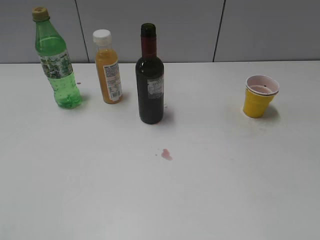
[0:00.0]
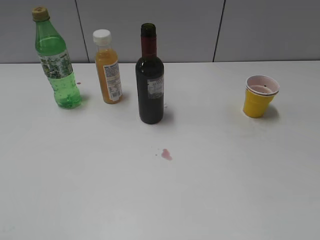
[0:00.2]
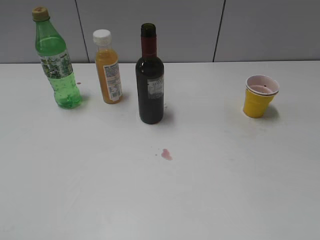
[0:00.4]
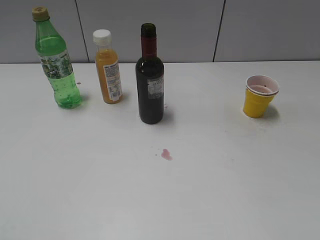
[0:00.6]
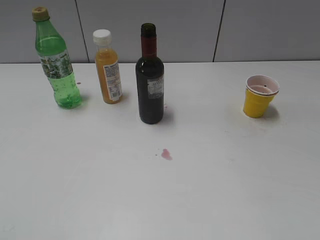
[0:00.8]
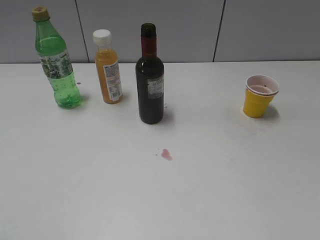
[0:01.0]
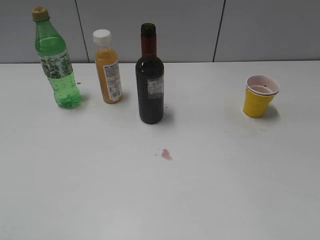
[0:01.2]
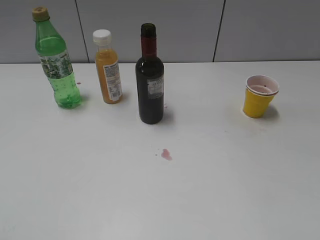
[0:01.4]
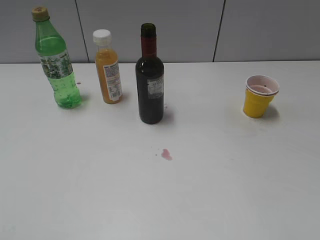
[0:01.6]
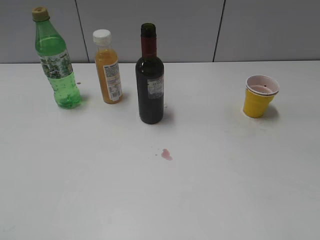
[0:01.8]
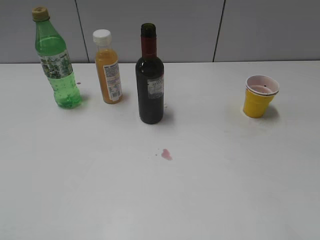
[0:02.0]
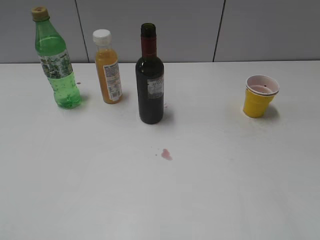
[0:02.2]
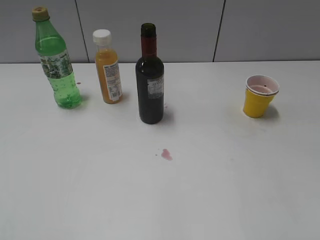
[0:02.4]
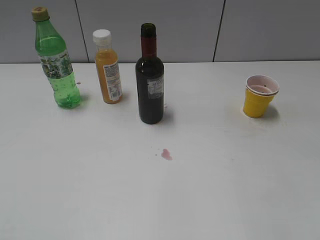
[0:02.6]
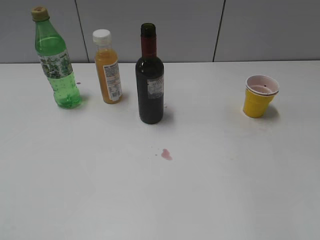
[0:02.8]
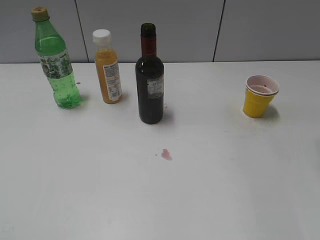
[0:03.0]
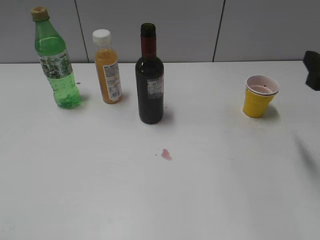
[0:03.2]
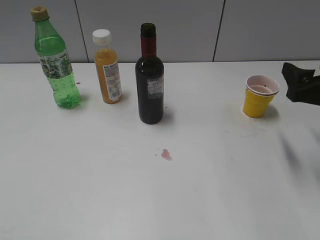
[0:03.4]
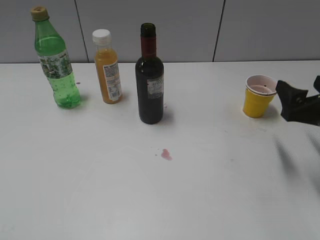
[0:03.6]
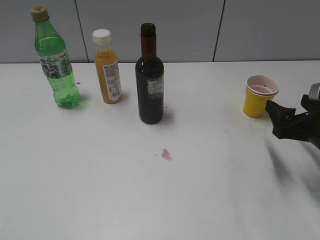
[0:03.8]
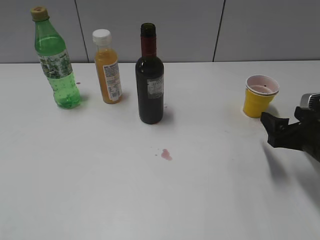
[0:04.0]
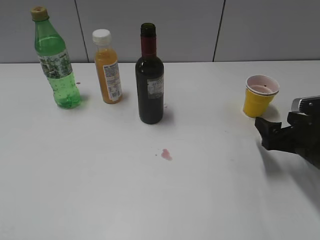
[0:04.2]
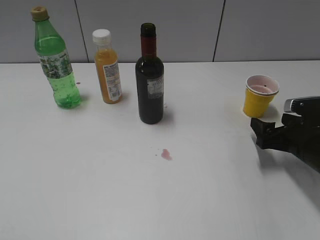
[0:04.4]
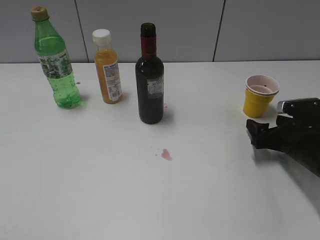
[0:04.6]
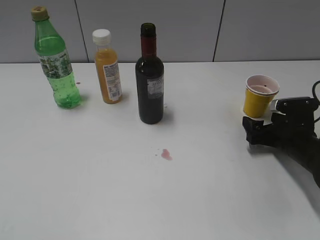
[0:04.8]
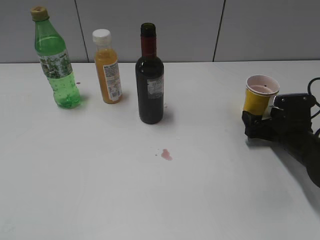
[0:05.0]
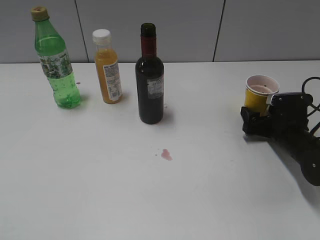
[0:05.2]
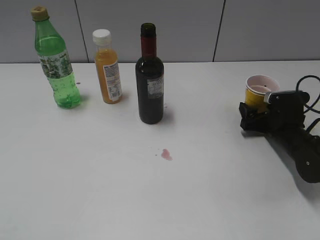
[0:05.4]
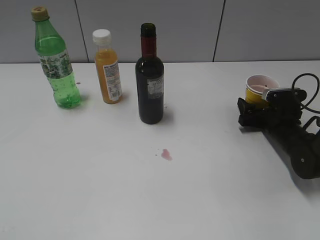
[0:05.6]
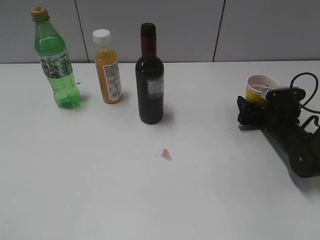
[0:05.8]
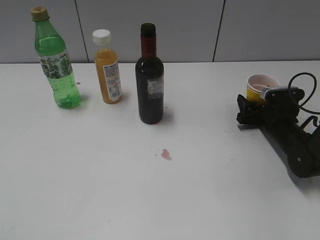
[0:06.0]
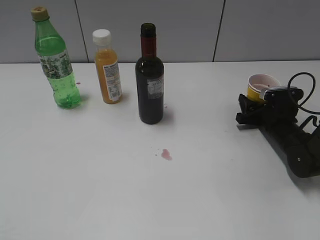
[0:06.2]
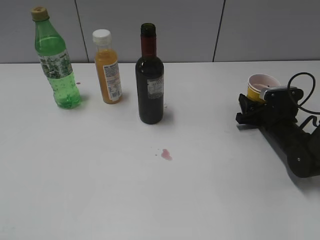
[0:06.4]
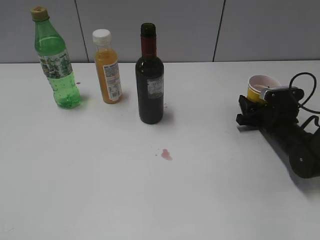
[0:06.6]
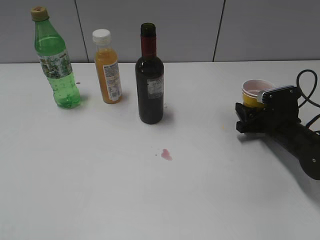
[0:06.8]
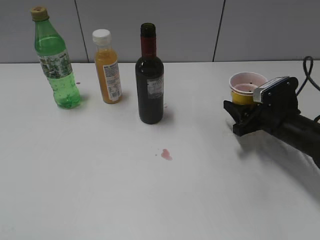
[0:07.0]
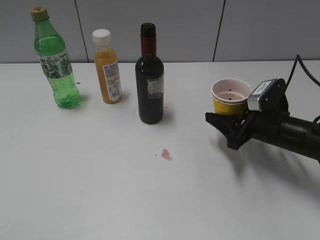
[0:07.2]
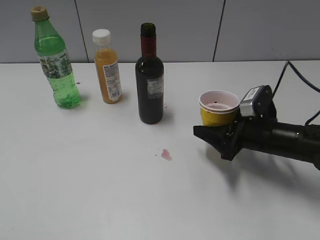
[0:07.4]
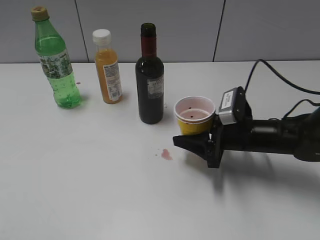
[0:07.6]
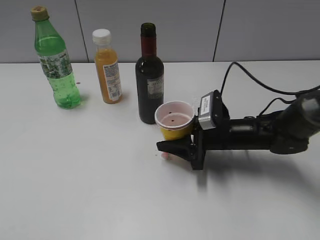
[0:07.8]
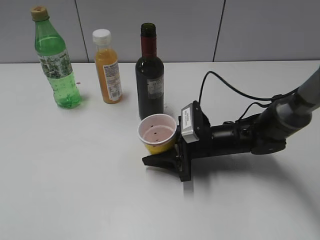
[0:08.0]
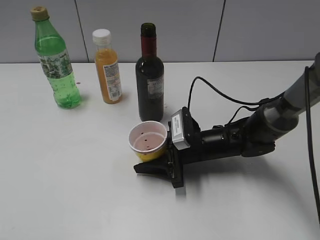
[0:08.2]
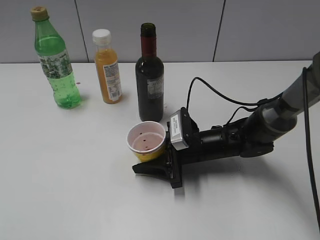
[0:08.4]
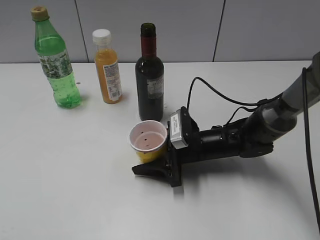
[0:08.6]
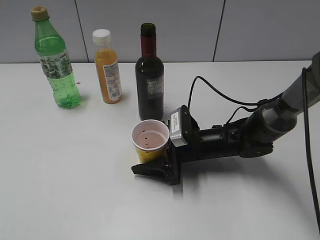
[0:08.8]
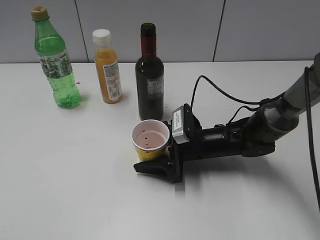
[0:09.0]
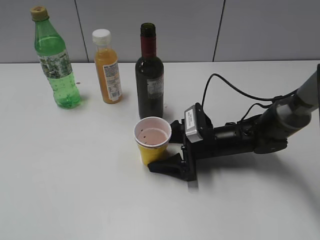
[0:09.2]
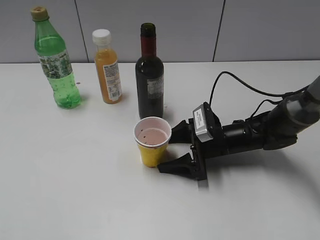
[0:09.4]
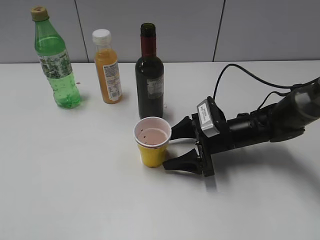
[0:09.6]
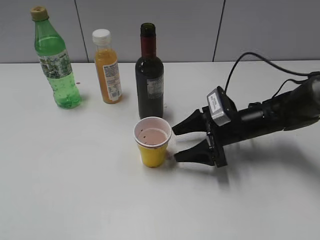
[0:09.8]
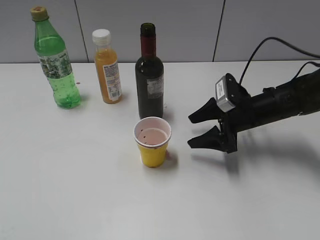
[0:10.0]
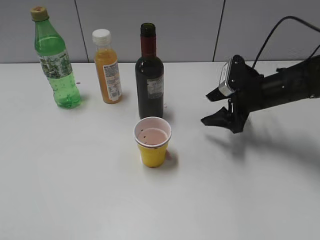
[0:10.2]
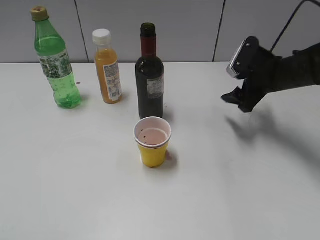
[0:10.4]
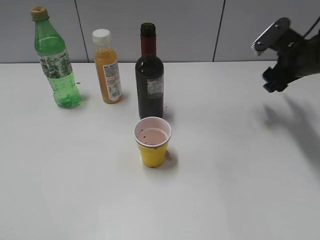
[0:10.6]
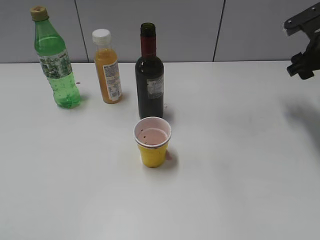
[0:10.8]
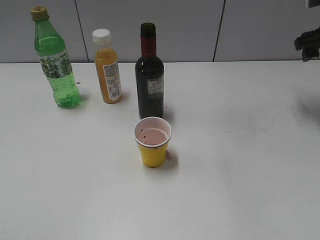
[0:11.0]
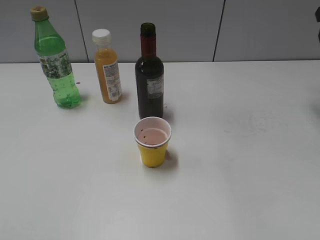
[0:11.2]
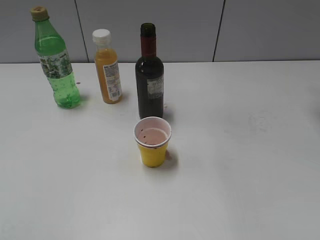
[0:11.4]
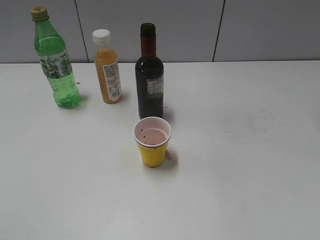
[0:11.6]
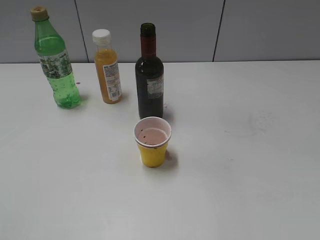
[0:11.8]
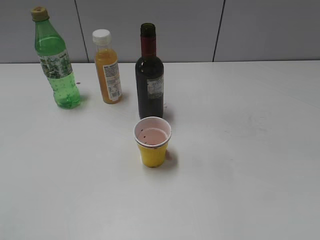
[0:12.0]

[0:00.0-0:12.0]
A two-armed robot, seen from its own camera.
Step, 0:01.2 to 0:06.2: Grasp the yellow paper cup with right gripper.
Step, 0:06.4 to 0:09.4: Place the yellow paper cup on the table with right gripper.
0:03.0 to 0:04.4: The right gripper travels downward by roughly 15 cm, and opens.
0:04.4 to 0:06.0: The right gripper is displaced forward and downward by roughly 10 cm.
0:06.0 to 0:07.6: The right gripper goes approximately 15 cm to the left, backward and upward, and closes its fingers.
0:07.6 to 0:09.0: The right gripper travels to the left by some 10 cm, and opens its fingers.
0:09.0 to 0:10.4: The right gripper shifts about 20 cm to the right, upward and forward.
0:10.4 to 0:12.0: The right gripper heads upward and to the right, covering some 25 cm.

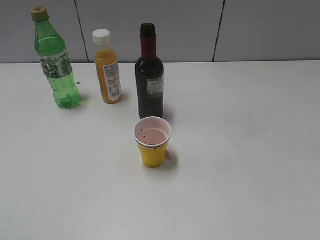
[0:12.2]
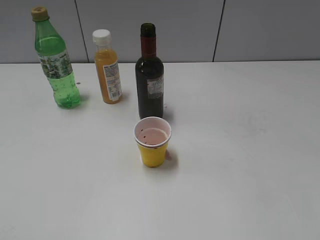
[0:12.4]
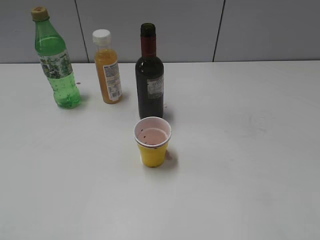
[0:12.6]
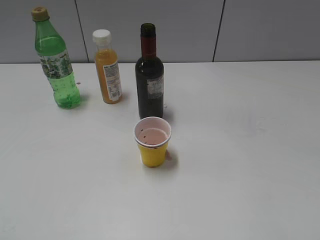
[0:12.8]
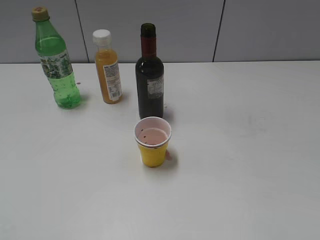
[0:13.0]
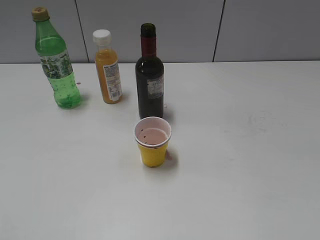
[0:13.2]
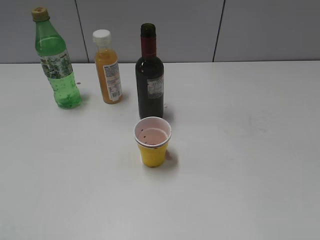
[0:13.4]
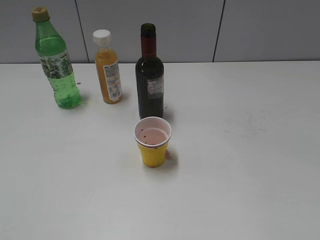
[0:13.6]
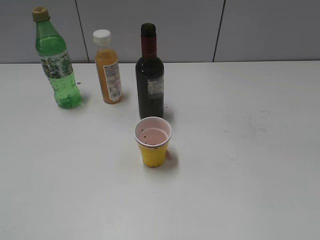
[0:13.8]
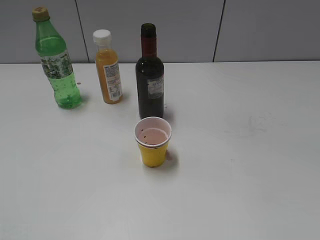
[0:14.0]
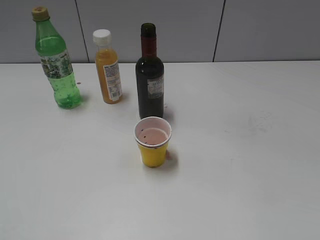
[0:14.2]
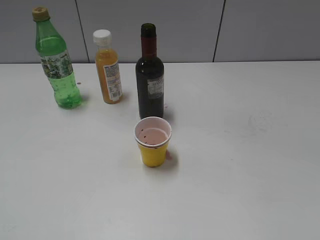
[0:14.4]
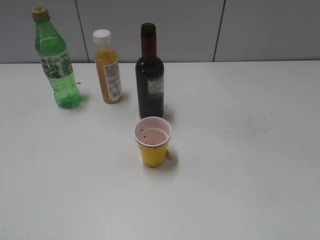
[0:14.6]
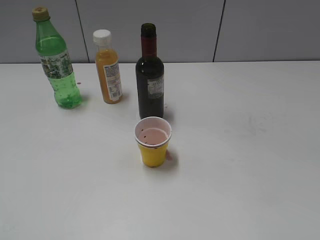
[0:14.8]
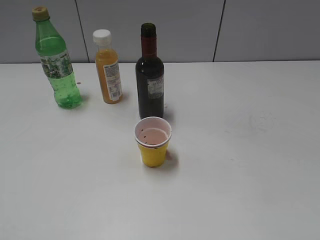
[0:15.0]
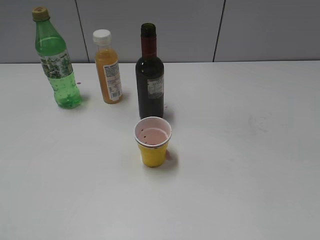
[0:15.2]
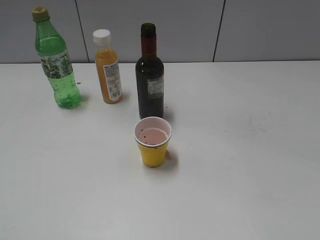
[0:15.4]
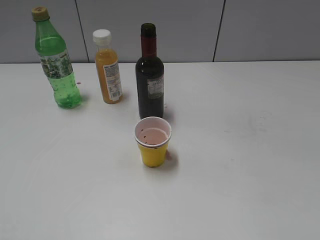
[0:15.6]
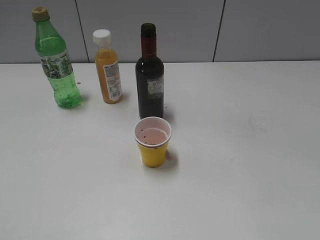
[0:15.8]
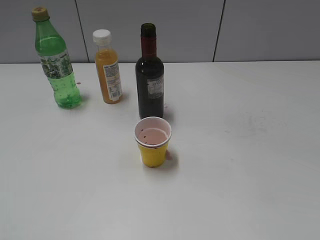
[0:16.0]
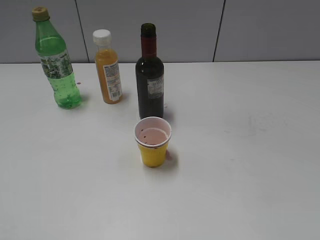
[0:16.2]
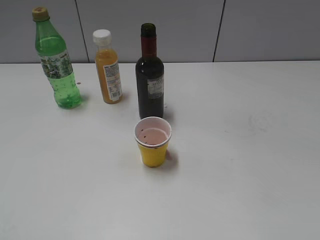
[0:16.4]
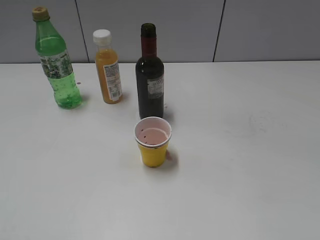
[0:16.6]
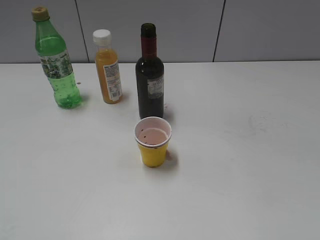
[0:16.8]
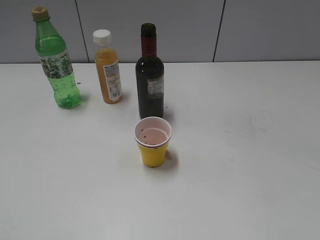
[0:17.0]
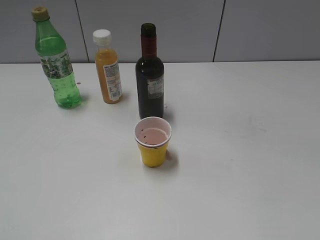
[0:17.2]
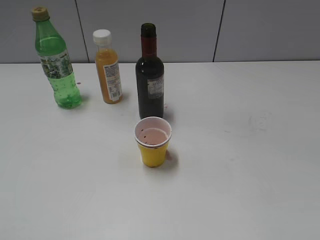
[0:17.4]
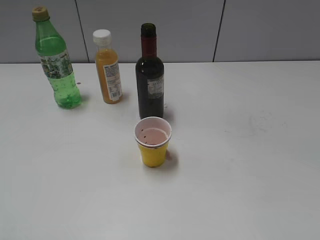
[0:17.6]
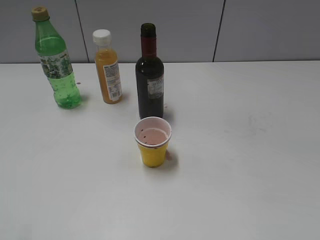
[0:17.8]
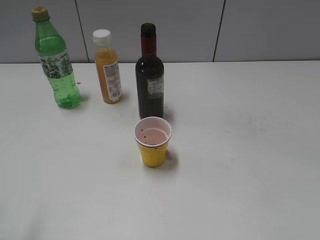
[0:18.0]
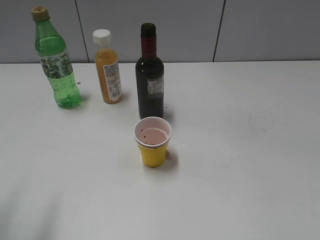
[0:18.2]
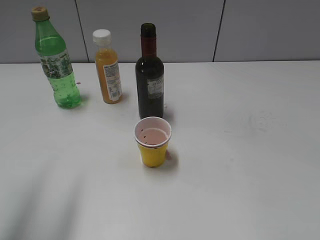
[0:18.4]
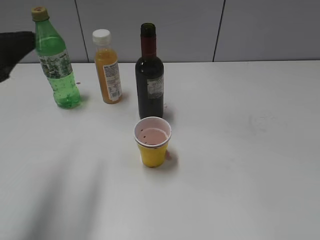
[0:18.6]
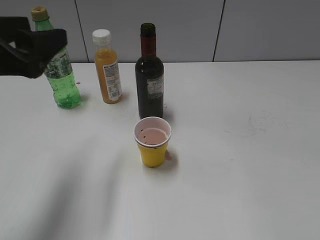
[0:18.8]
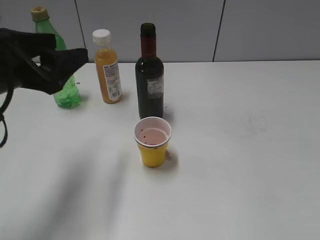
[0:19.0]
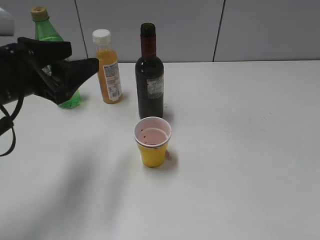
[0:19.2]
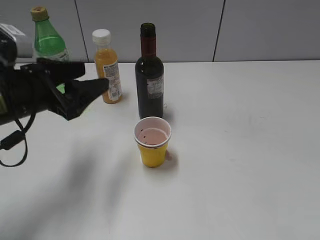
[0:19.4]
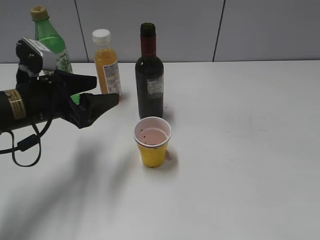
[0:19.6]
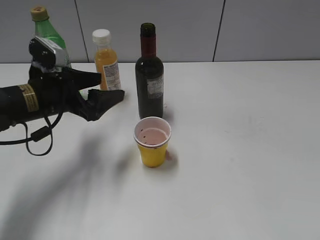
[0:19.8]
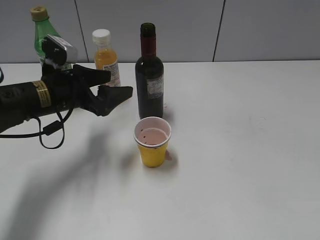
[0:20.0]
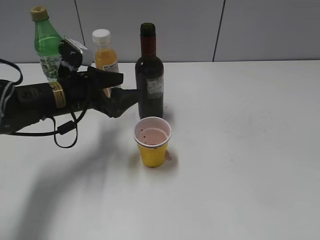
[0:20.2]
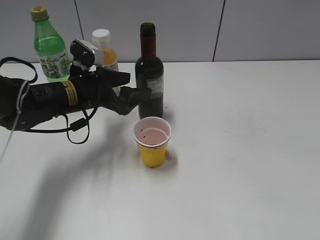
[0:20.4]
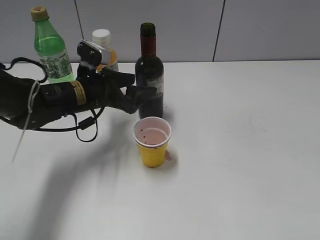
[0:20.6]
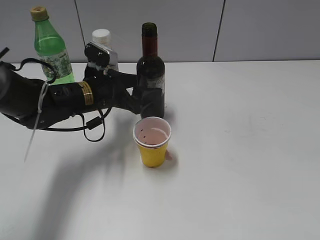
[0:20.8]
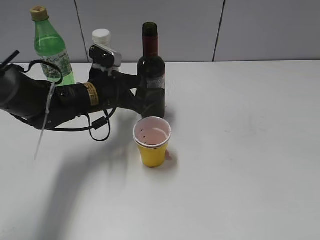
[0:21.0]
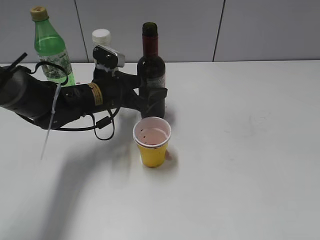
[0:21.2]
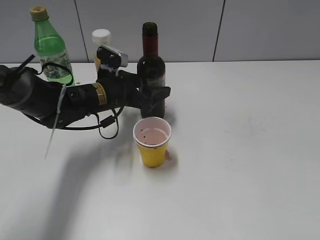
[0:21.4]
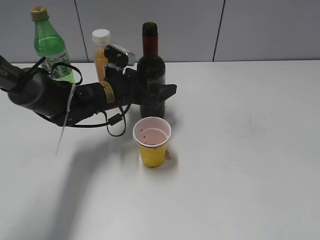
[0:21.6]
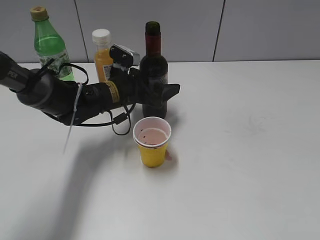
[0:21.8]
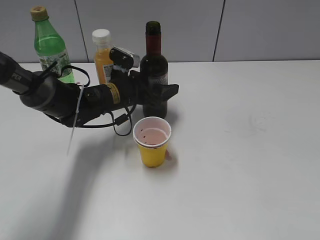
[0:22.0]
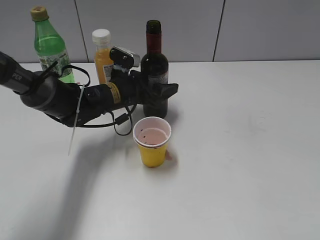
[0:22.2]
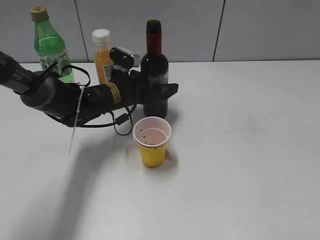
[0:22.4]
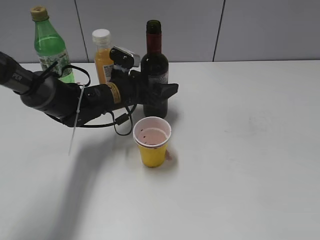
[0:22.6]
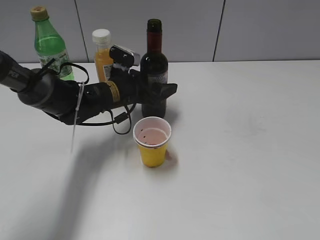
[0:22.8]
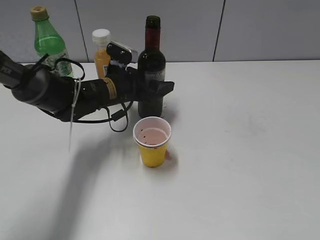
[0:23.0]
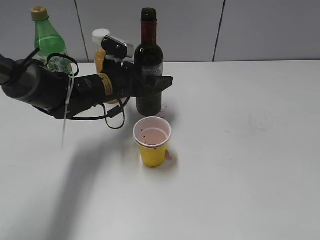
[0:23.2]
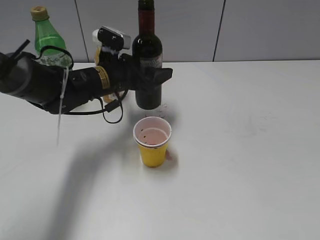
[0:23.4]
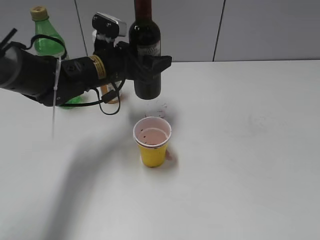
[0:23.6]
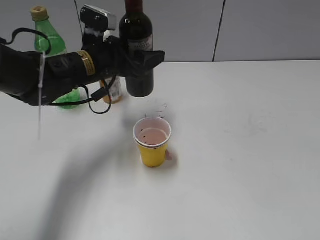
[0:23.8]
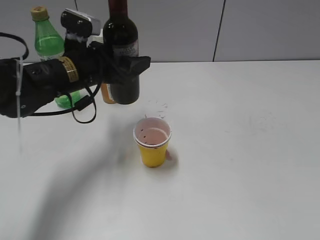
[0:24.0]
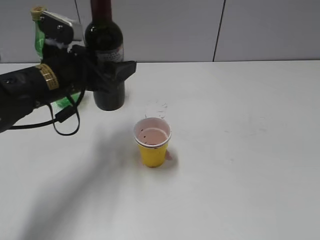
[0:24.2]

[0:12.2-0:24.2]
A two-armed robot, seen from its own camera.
Step, 0:17.2 to 0:22.4: Grasp the bottle with red wine with left gripper.
0:15.2 to 0:16.6: The two grippers keep their place.
0:18.2 to 0:19.8: The left gripper goes approximately 25 cm forward, downward and to the right, and opens.
0:19.8 to 0:21.2: The left gripper goes approximately 10 cm to the right and forward.
0:21.2 to 0:22.6: The left gripper closes up.
0:22.6 to 0:24.2: The left gripper is displaced upward, backward and to the left by some 15 cm.
